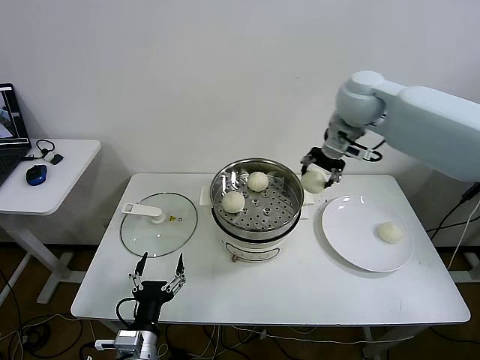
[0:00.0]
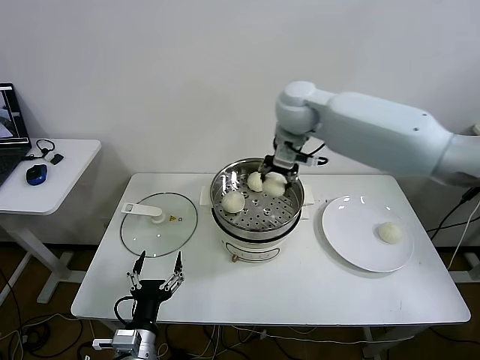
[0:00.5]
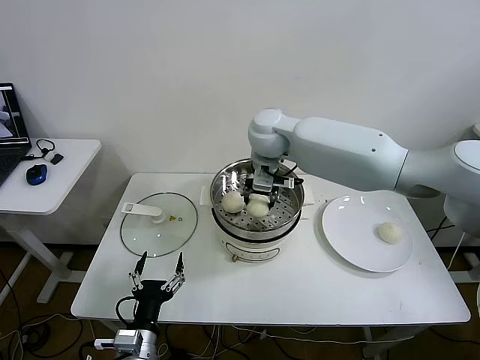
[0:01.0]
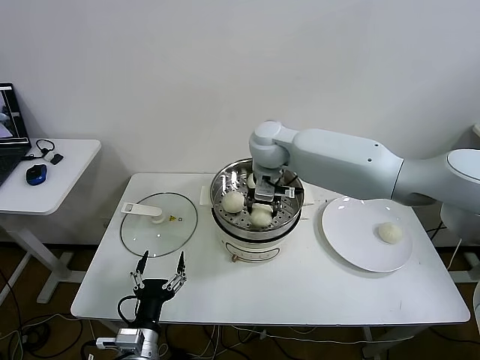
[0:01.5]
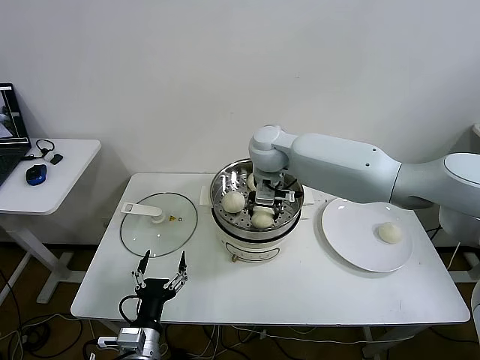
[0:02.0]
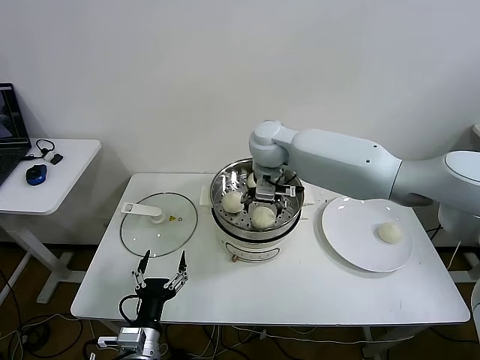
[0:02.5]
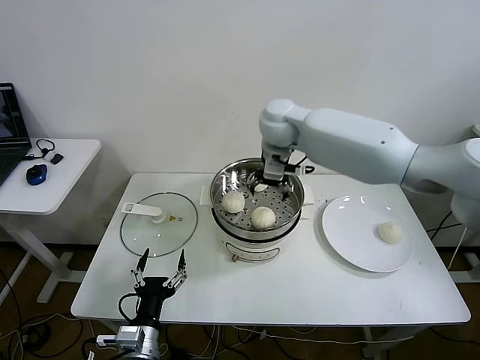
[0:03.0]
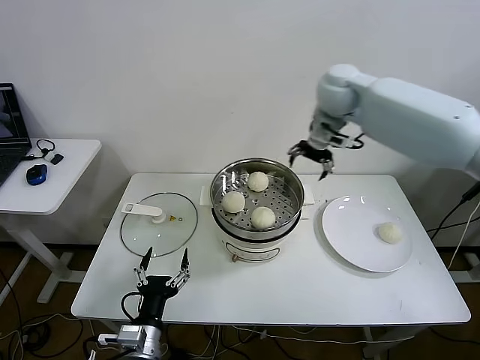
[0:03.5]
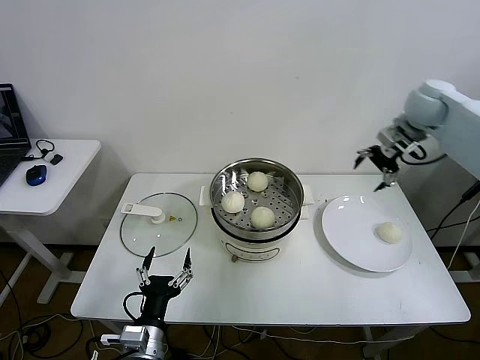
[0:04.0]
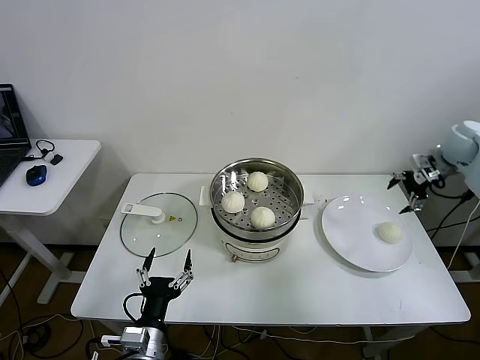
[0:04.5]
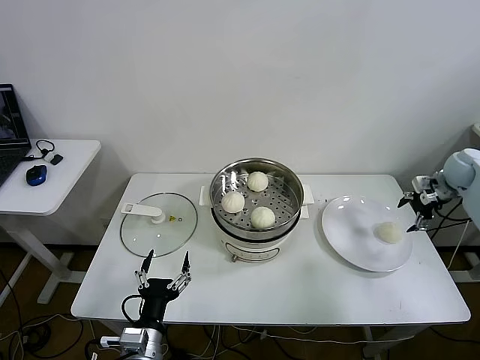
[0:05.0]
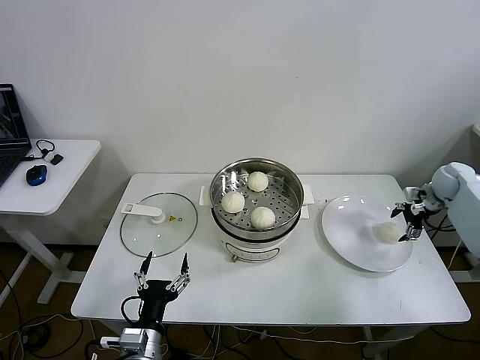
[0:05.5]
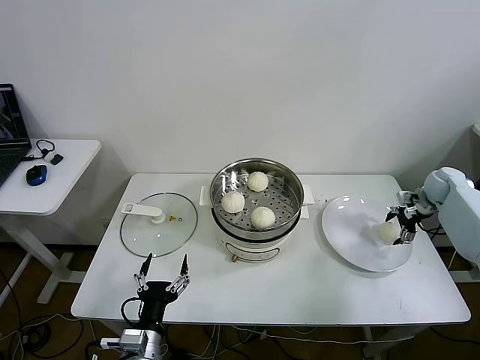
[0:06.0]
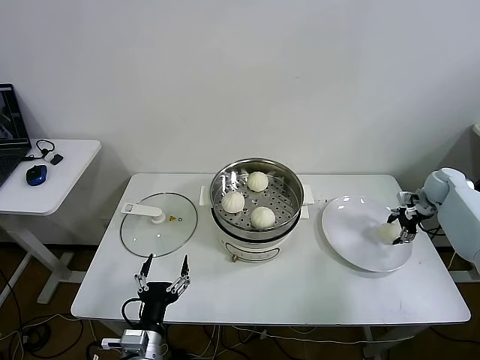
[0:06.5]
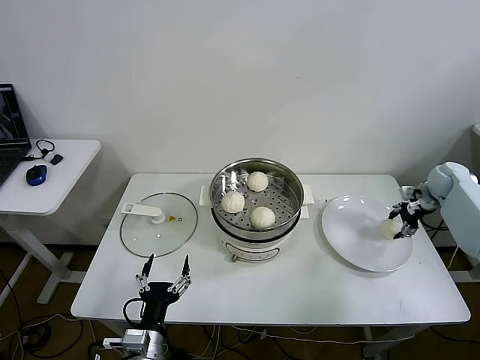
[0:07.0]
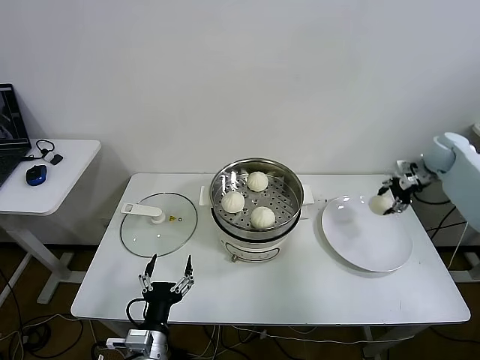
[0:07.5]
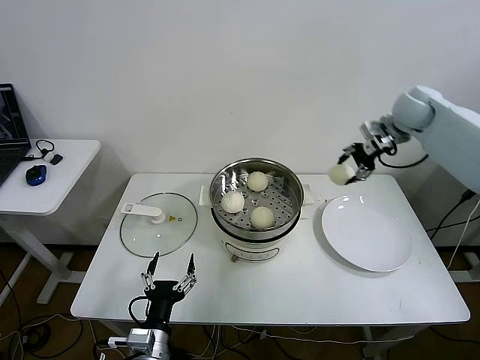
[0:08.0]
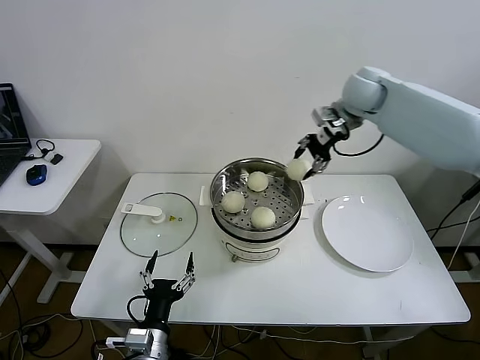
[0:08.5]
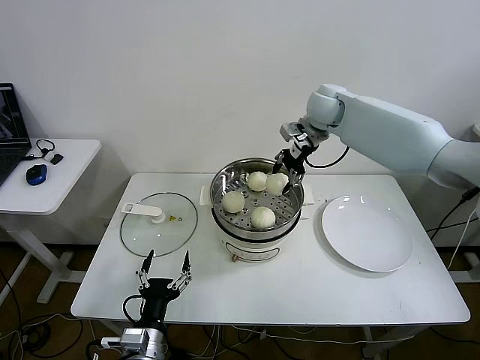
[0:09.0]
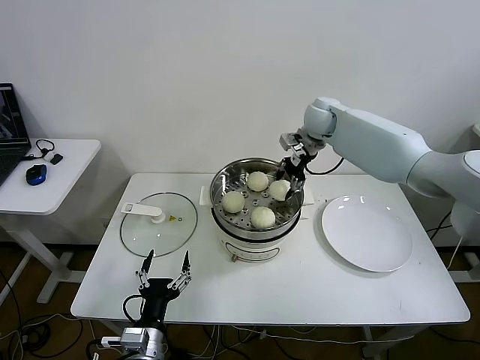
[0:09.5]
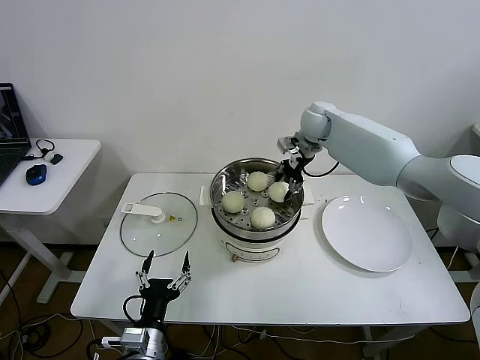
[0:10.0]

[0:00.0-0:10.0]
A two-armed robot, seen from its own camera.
Step, 0:00.0 to 0:02.0: Place the baozi on the steamer with right gripper.
Step, 0:02.5 to 0:06.5: Grasp the baozi in the plate with right gripper.
0:00.0 to 0:02.0: The right gripper goes approximately 20 cm to the left and downward.
0:02.0 to 0:04.0: The right gripper goes about 35 cm to the right, and opens.
0:04.0 to 0:06.0: The right gripper travels downward and to the right by about 25 cm.
0:06.0 to 0:08.0: The right gripper shifts some 25 cm upward and to the left, and closes up.
0:08.0 to 0:10.0: The right gripper travels to the left by roughly 20 cm.

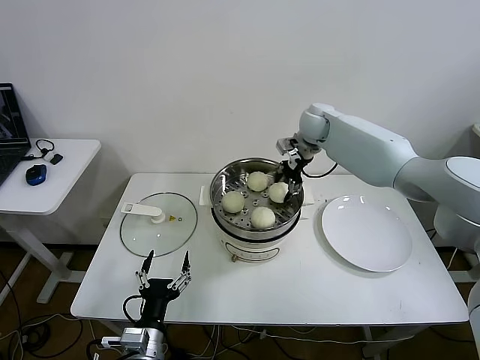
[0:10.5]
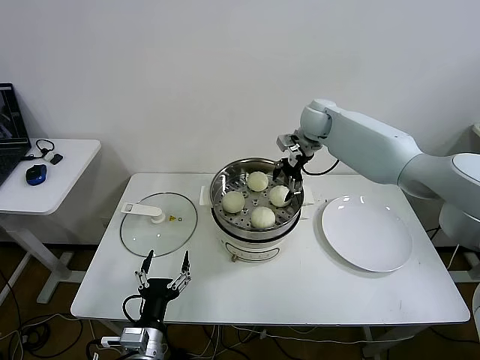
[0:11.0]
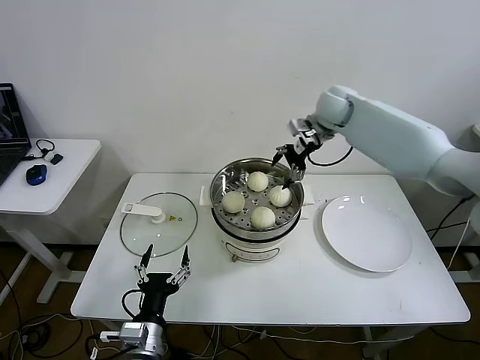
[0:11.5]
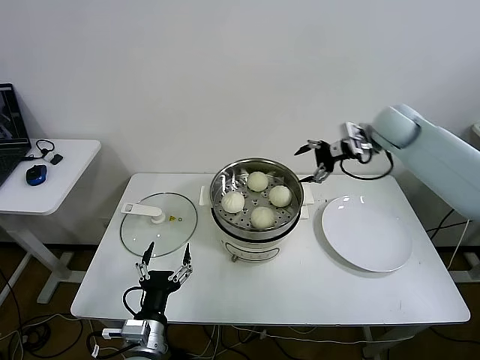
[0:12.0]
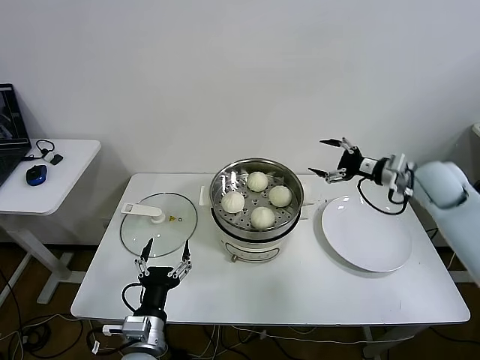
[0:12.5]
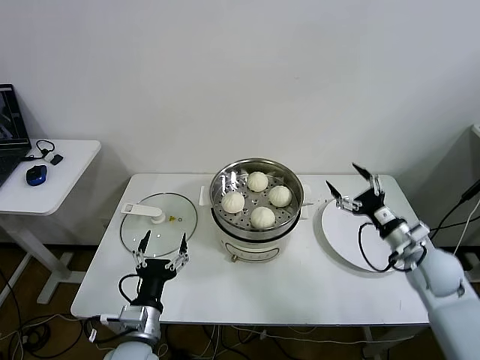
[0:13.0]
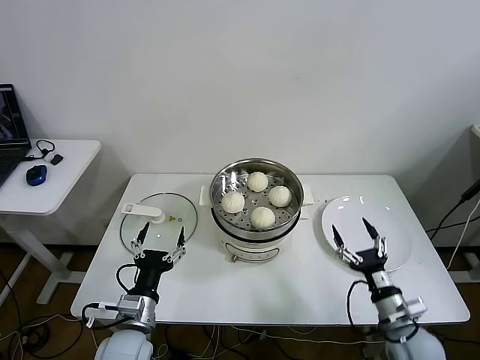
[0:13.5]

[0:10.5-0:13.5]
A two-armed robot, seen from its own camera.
0:10.5 to 0:12.0: The right gripper moves to the right and backward, about 15 cm, and opens.
0:12.0 to 0:13.5: The left gripper changes place by some 5 cm; the right gripper is displaced backward and downward by some 50 cm.
